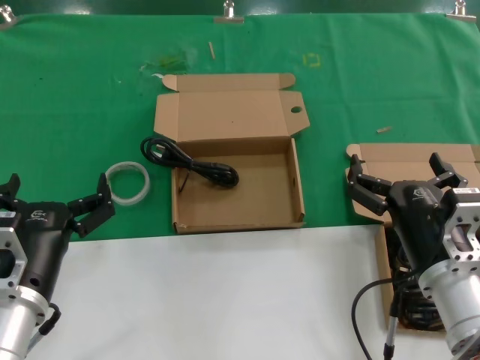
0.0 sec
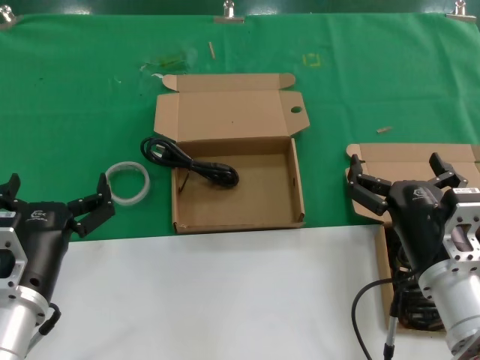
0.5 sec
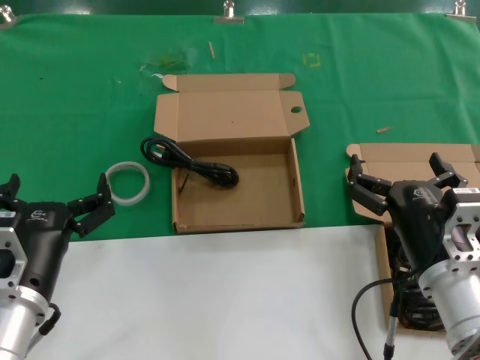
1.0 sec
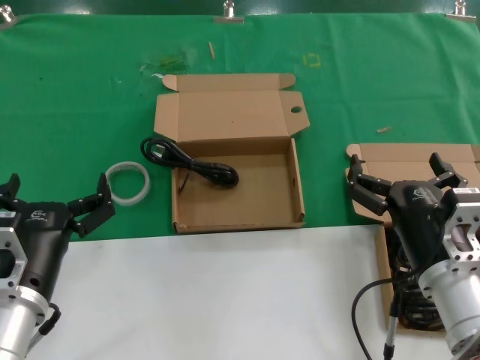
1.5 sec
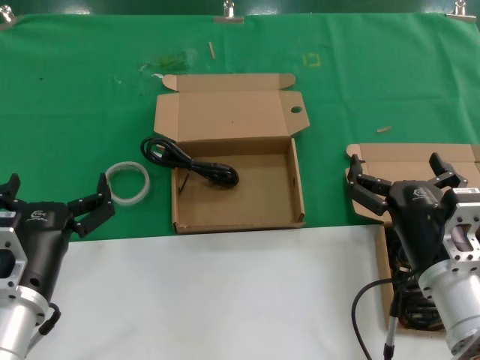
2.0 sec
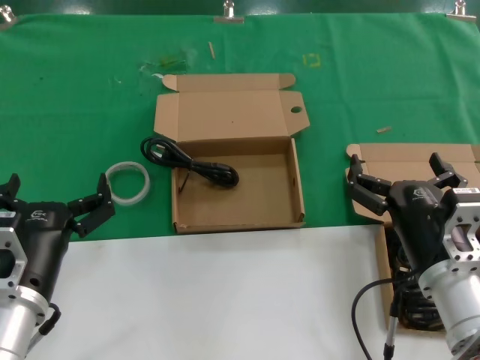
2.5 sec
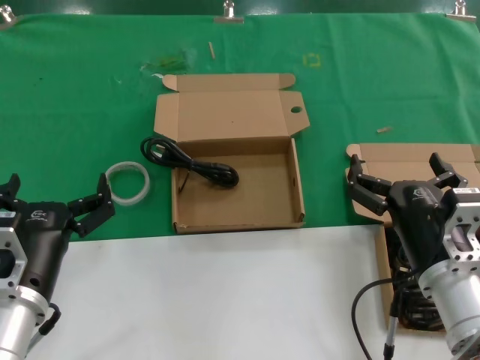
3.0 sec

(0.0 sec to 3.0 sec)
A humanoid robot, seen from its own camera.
Task of the whole recording: take the parts from the box containing them and put them into an empty box.
0.0 sec - 3.0 sec: Both hands stay about where they are.

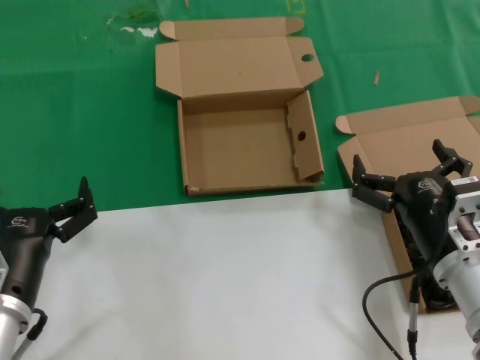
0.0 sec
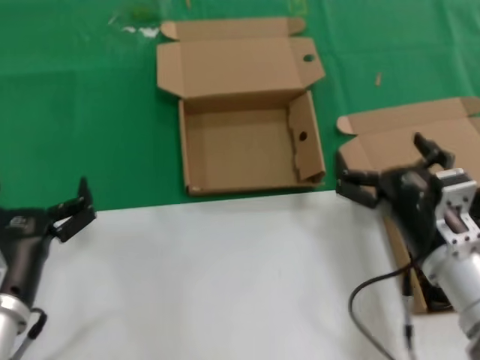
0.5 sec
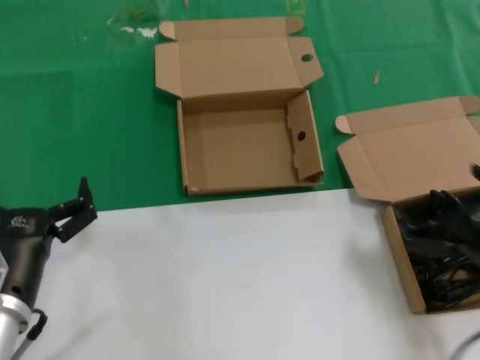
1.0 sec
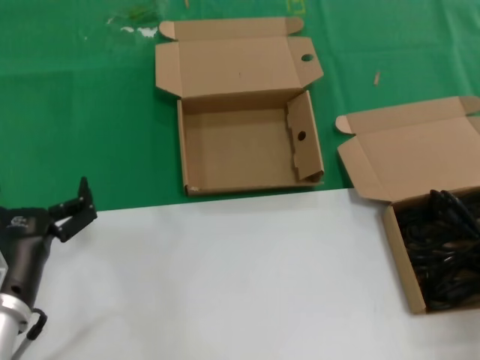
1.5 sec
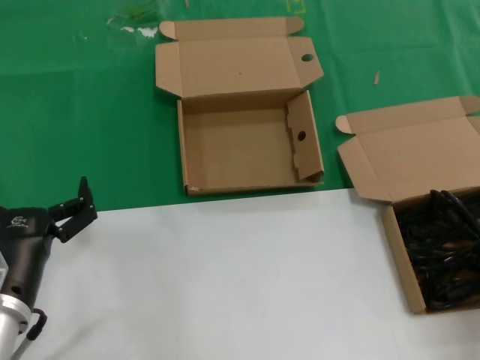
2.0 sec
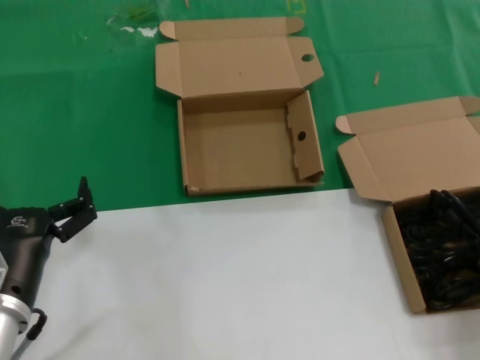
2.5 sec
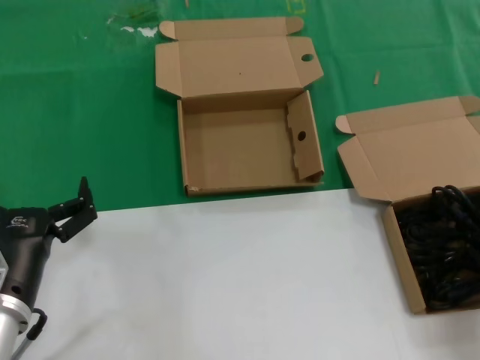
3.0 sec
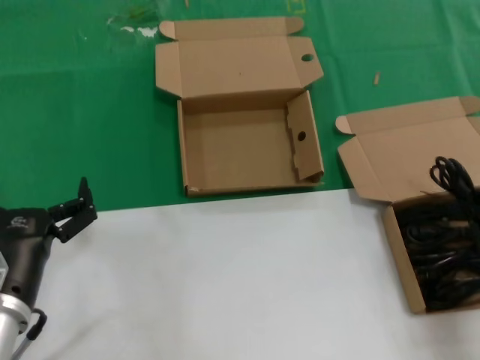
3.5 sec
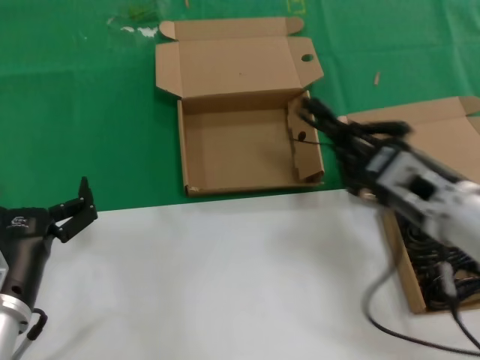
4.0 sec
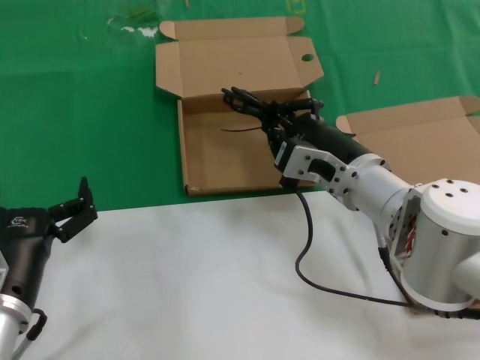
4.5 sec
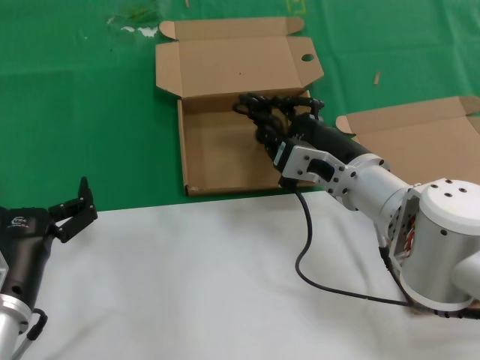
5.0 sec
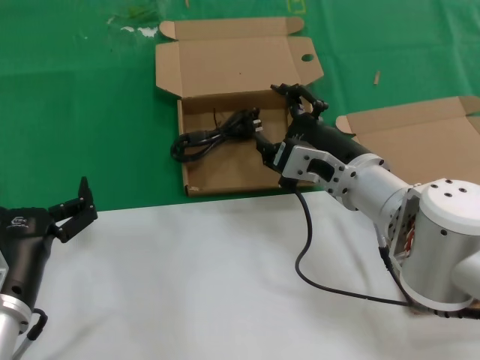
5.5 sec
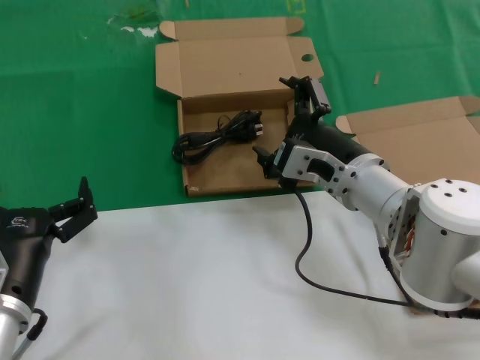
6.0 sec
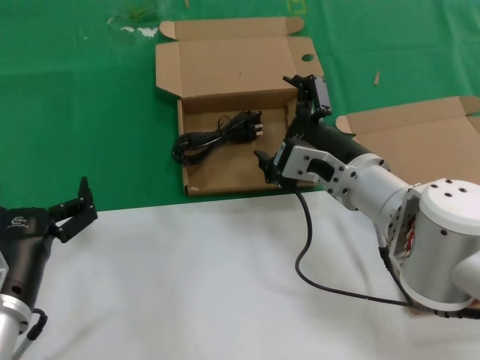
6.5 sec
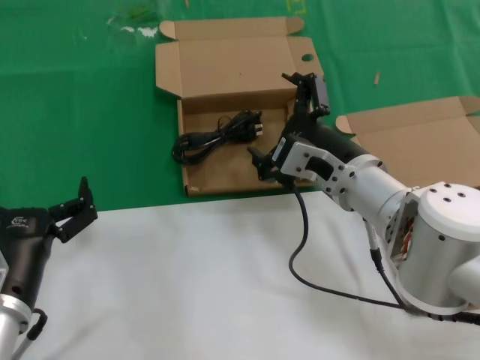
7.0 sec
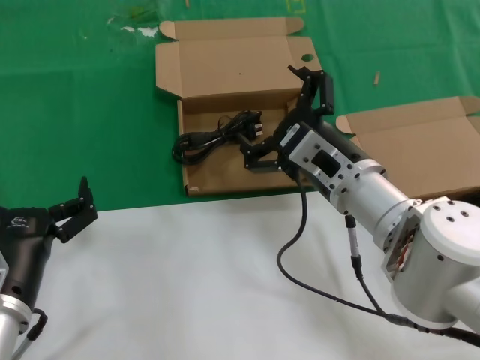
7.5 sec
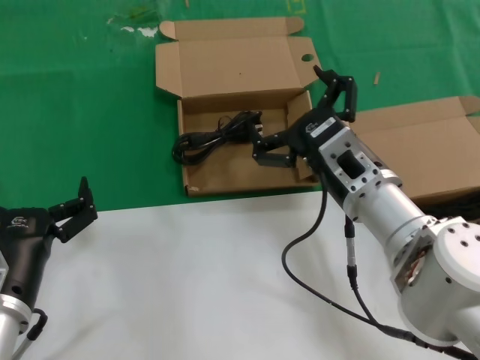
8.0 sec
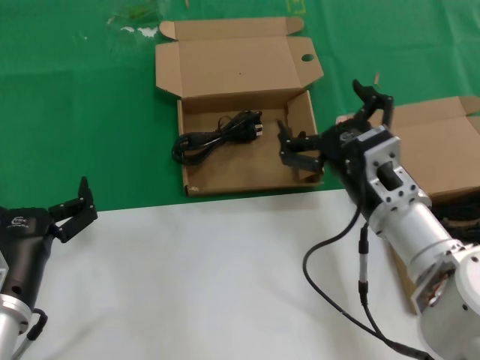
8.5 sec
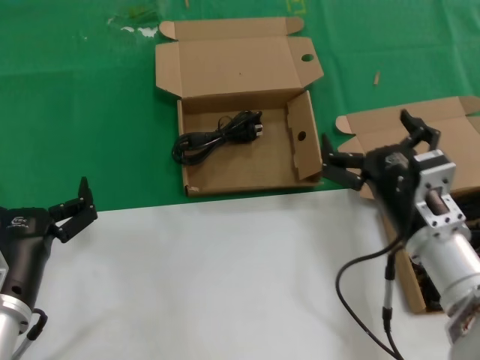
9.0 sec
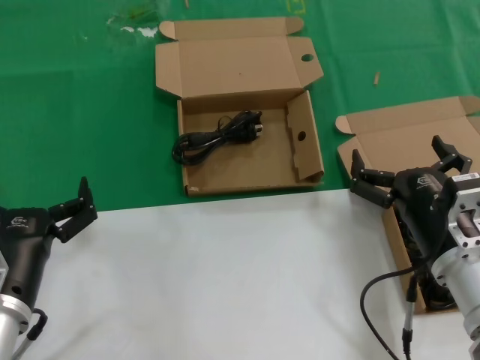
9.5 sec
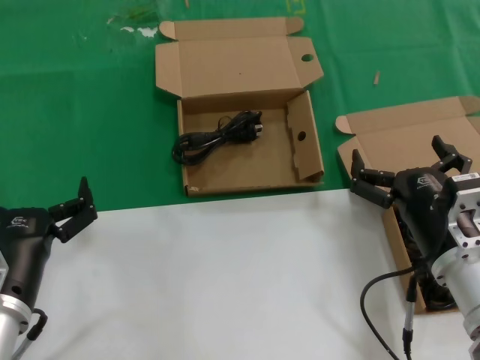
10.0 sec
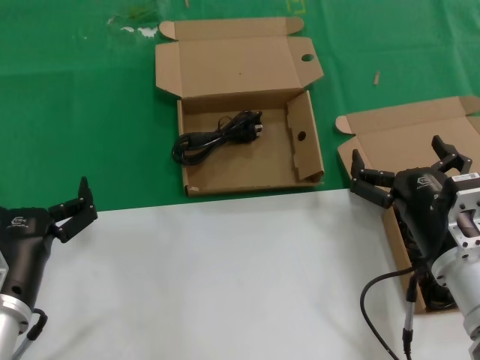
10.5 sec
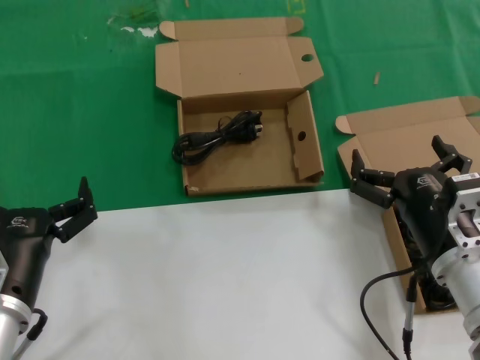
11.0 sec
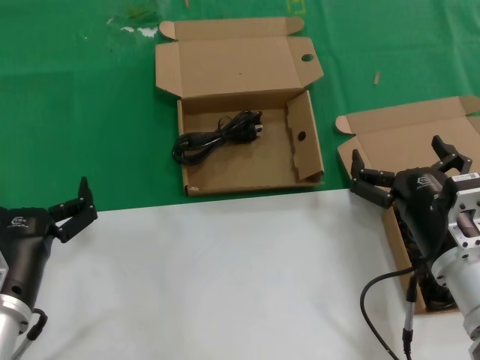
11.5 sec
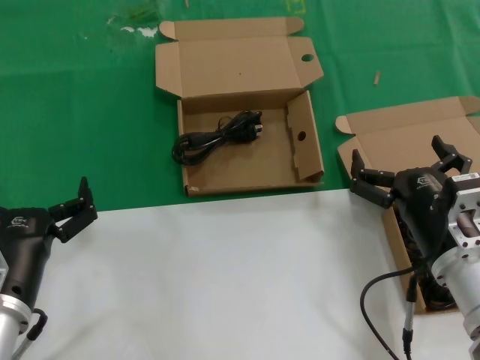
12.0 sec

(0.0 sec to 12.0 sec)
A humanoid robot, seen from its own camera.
Task of the whole recording: take the parts from the box containing them and put them into an empty box.
Step, 0.0 sec - 2.5 sec: Grasp the data cable.
Step, 3.5 sec - 6.0 sec: Place the data cable in the another box.
0.0 sec - 2.0 sec: The right hand goes some 20 cm to the right, upward and backward.
2.0 sec - 4.0 sec: The right hand shifts approximately 20 cm to the left and forward.
4.0 sec - 6.0 sec: The right hand travels to the left and forward by approximately 10 cm.
8.0 sec - 10.0 sec: The right hand heads to the right, backward and downward, covering about 10 cm.
10.0 sec - 12.0 sec: Neither hand changes place.

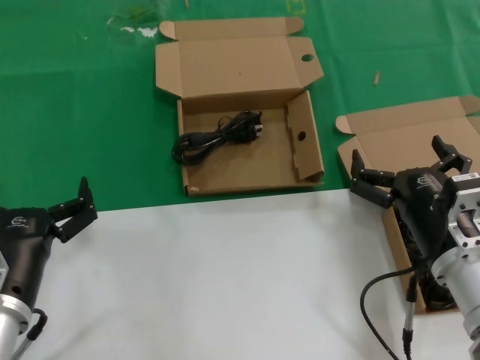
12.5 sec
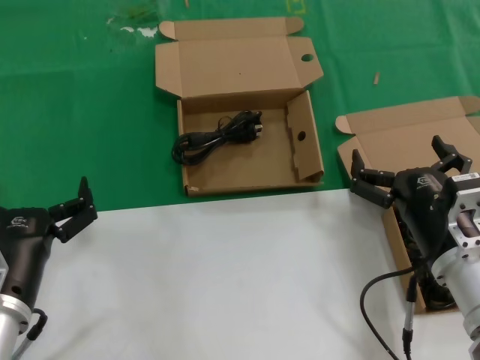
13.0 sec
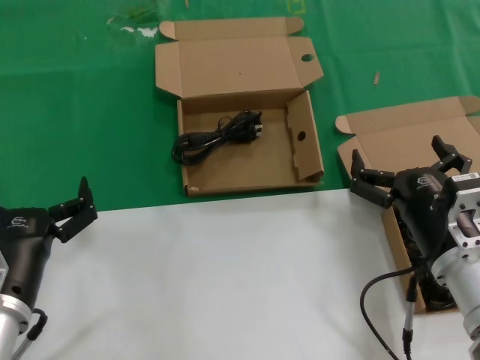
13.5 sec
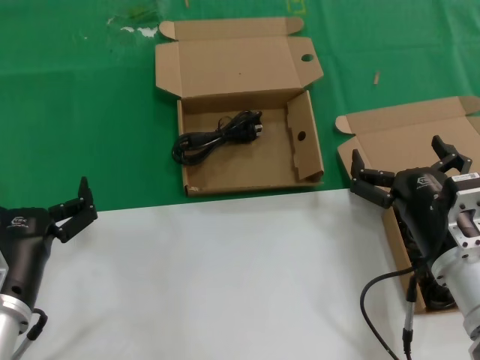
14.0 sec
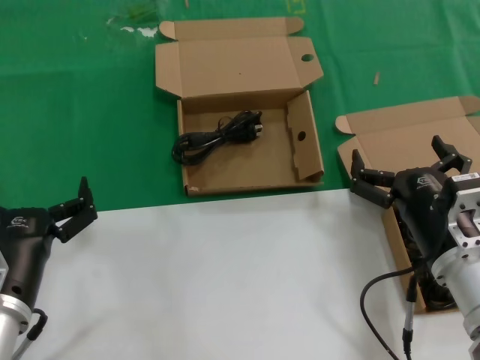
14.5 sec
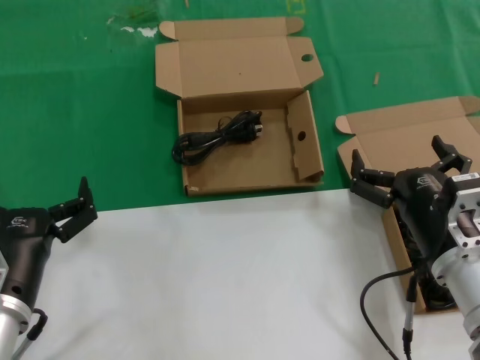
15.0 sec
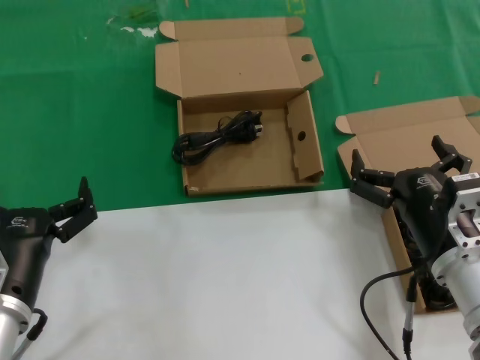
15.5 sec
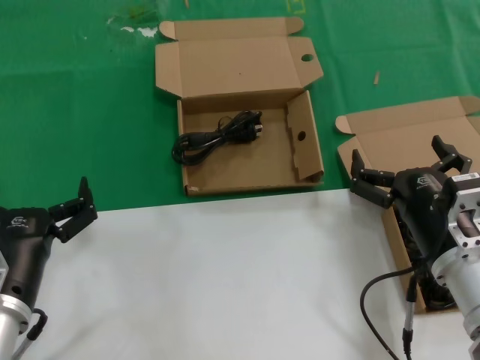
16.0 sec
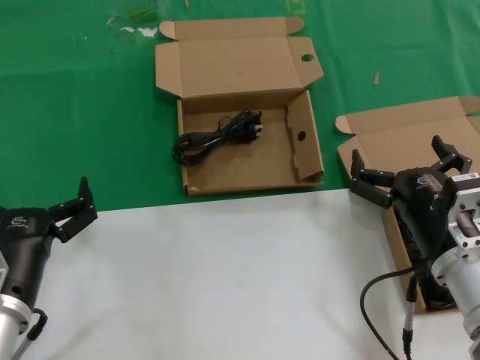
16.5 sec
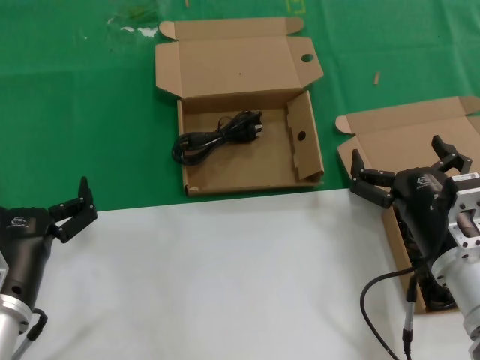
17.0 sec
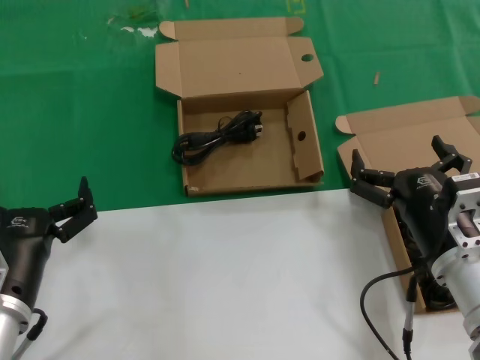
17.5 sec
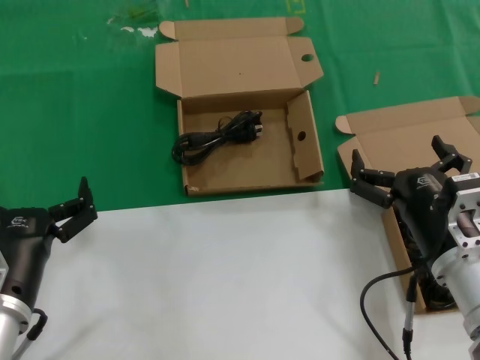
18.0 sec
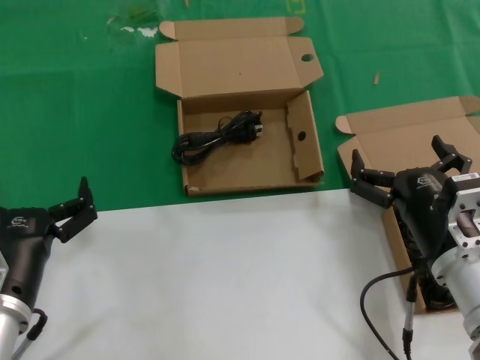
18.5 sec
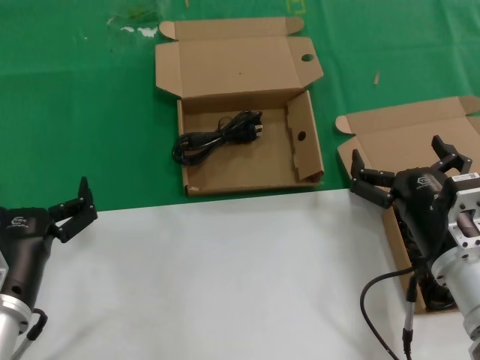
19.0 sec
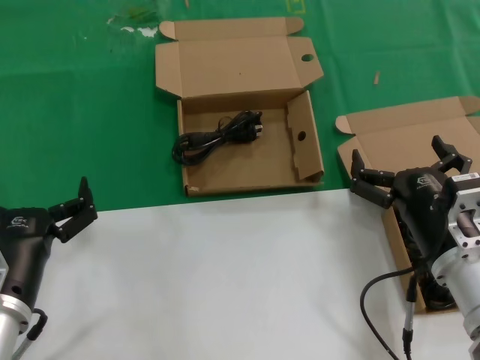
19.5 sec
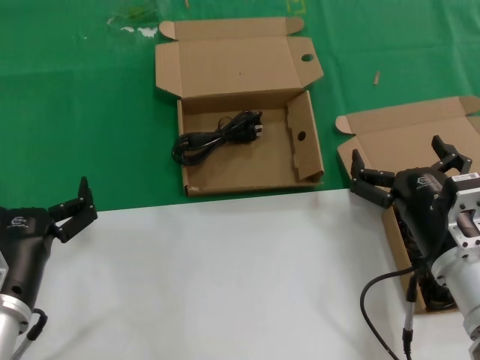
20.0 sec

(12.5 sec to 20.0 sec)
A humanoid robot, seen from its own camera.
Task of the whole recording: take the parts from the box containing them and put them into an empty box.
12.5 sec - 20.0 sec: The two hands keep their place.

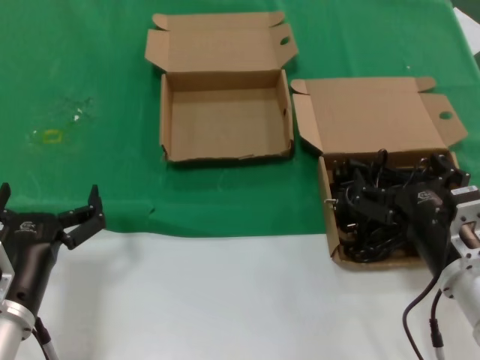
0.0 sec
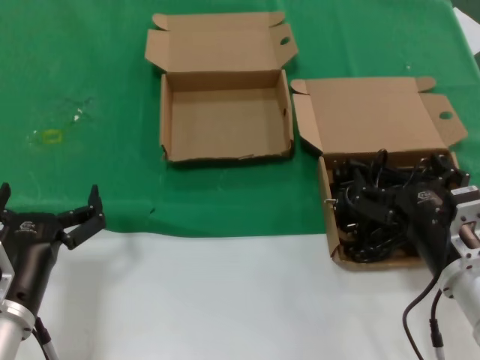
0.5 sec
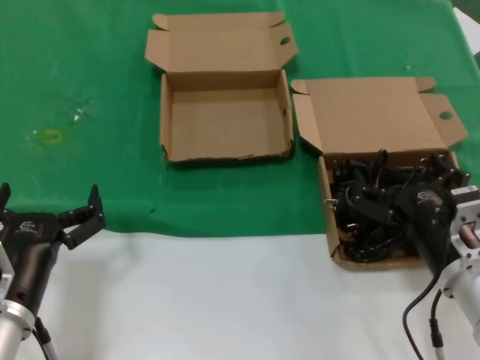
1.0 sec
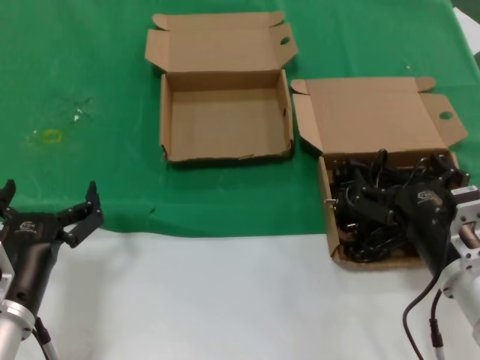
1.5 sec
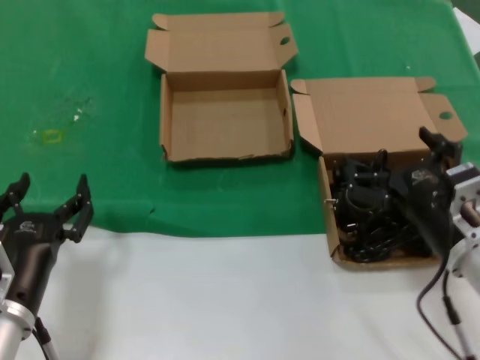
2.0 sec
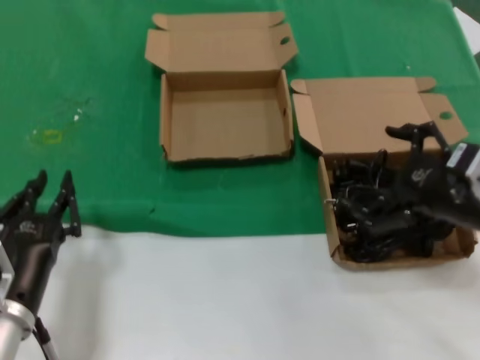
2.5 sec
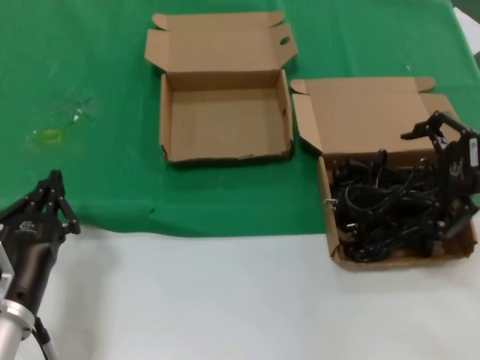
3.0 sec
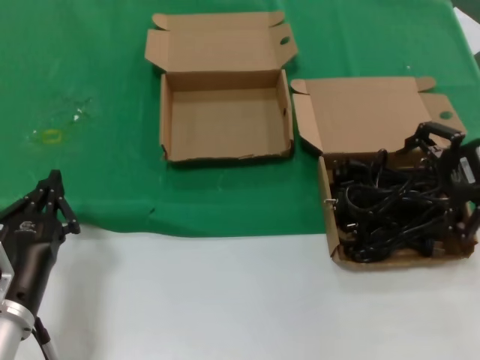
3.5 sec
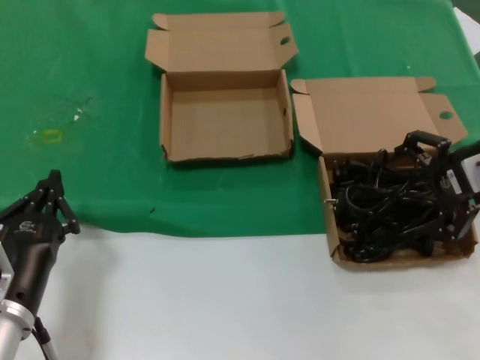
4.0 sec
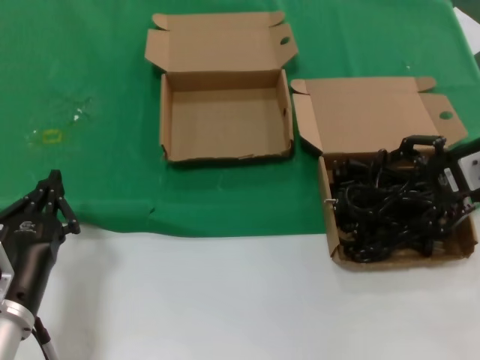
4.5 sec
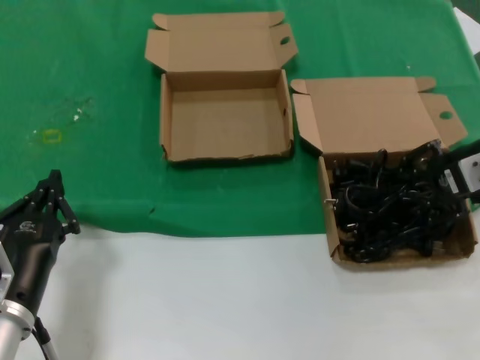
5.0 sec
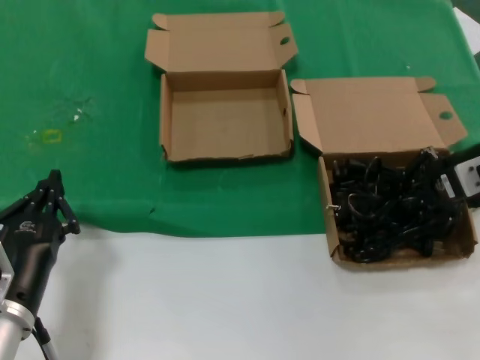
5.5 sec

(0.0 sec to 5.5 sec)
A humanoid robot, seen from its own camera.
Task of the whole recording: take the parts from the box containing them and put them into an empty box.
0.0 sec - 2.0 sec: The hands make only small movements.
2.0 sec - 3.5 sec: The right hand heads upward, forward and to the right, covering approximately 25 cm.
3.5 sec - 5.5 sec: The hands make only small movements.
